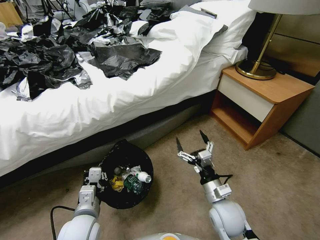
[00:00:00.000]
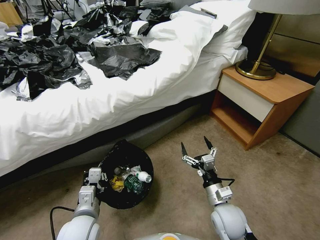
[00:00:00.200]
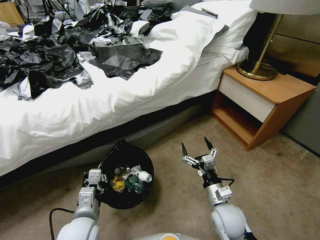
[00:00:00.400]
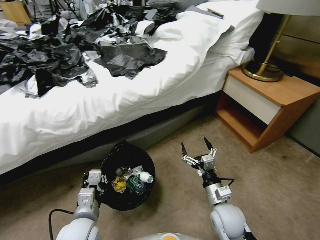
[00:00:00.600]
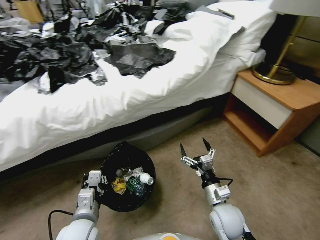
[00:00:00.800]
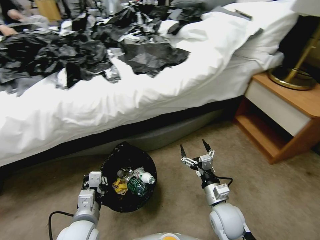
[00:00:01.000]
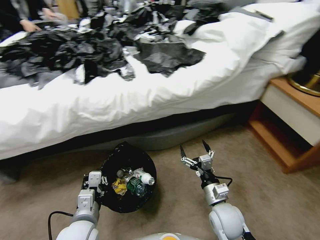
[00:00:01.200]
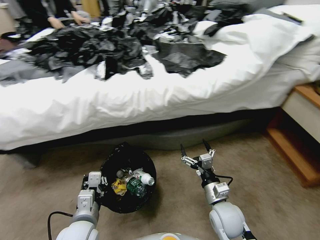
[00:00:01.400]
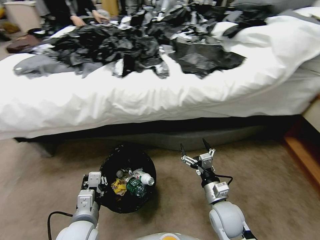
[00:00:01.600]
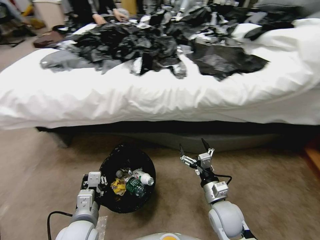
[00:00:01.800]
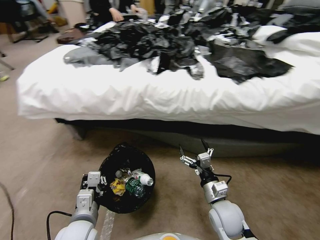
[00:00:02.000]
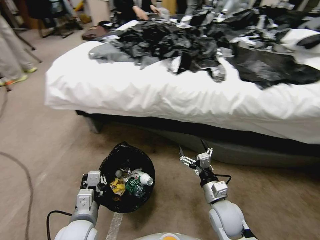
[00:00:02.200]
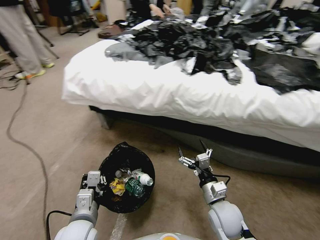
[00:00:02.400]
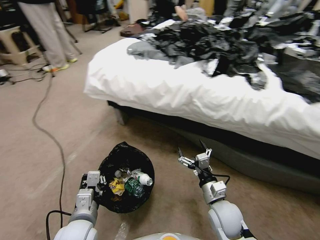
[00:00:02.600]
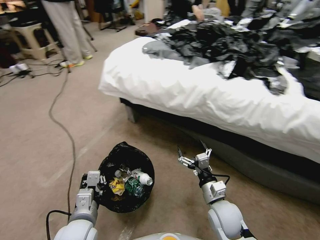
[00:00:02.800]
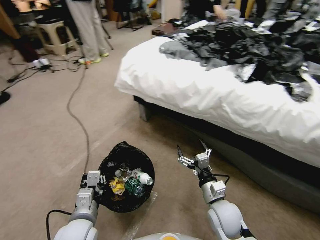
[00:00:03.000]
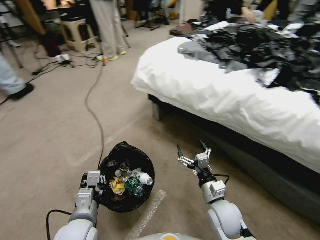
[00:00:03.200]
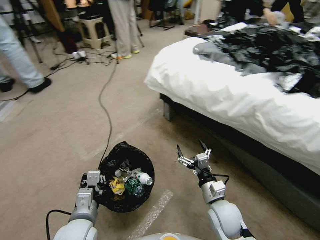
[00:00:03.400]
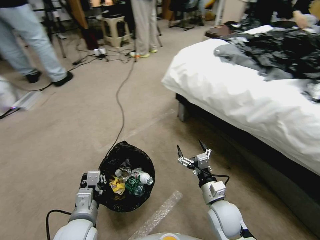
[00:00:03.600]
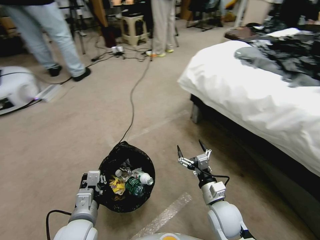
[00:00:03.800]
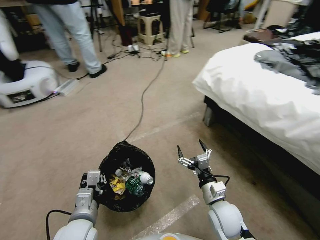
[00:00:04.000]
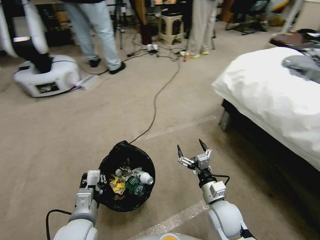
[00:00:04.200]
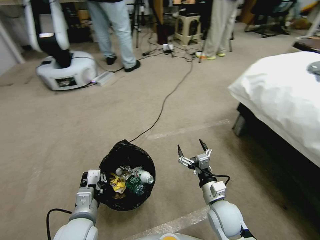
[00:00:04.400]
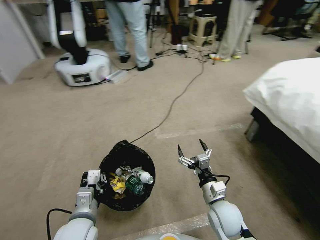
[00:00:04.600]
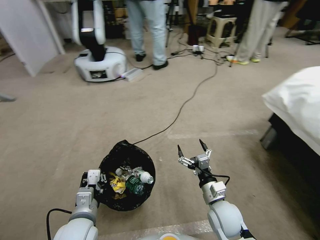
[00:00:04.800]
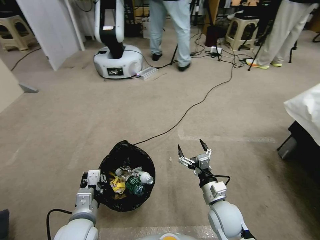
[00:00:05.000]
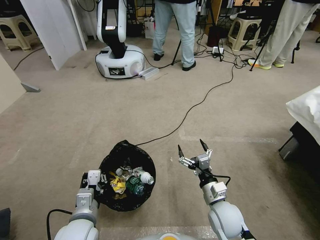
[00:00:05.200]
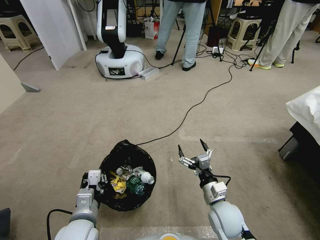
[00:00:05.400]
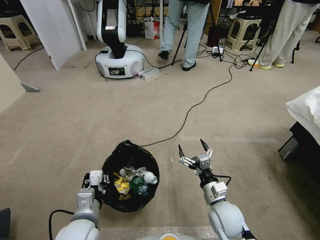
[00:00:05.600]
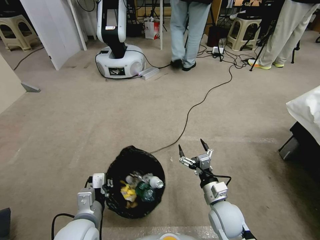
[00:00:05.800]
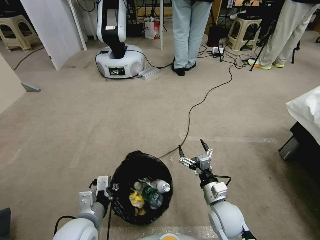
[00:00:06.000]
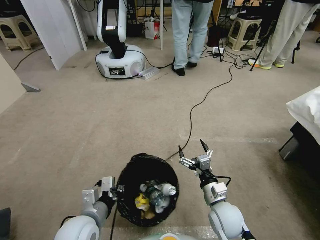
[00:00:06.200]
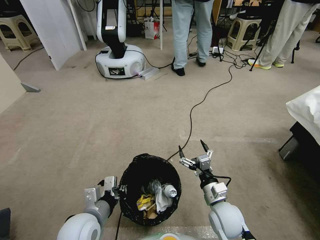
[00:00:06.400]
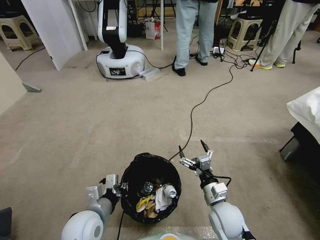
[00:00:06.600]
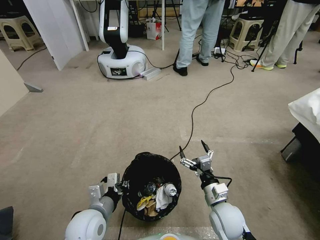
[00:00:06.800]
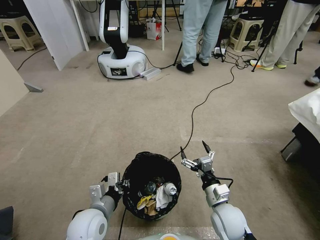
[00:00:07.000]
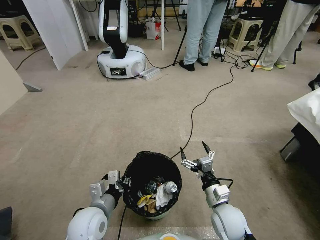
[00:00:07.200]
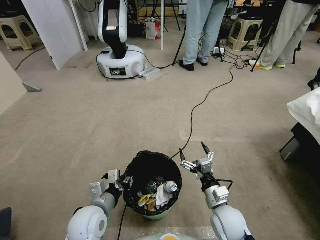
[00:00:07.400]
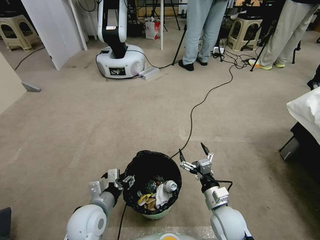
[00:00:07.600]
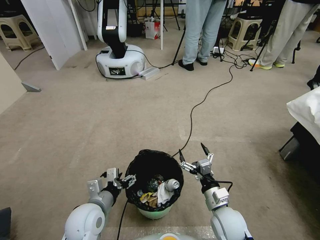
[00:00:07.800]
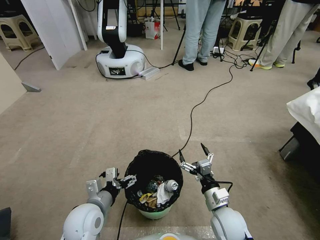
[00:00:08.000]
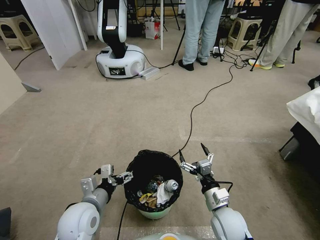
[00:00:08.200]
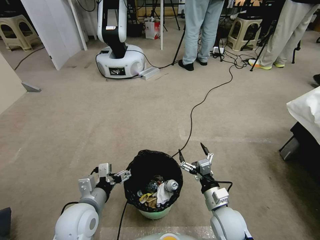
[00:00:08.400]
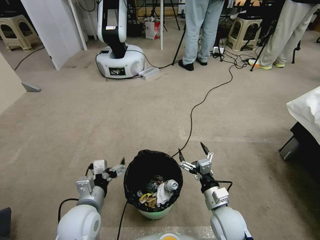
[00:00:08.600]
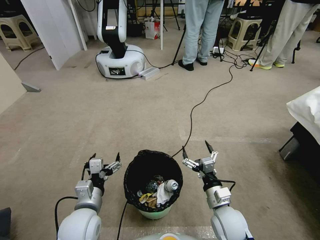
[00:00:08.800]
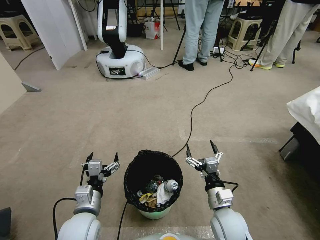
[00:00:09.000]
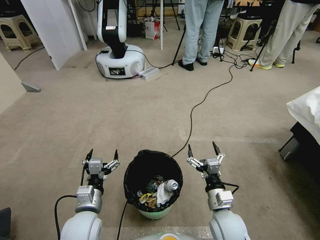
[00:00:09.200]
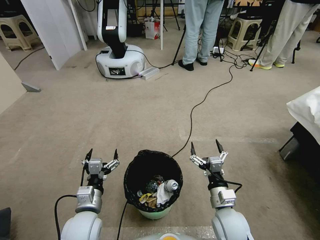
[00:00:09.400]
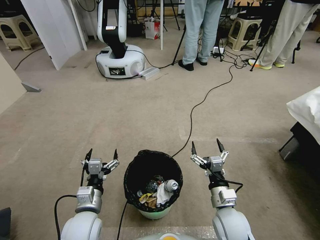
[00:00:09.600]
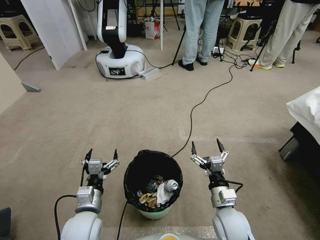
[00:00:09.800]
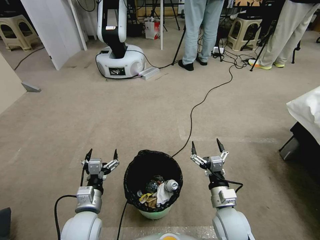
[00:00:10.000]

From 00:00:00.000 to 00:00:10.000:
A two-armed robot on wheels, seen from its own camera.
Task of the whole recording: Pick up the trash bin, then pick up the garbage from the floor and place it into the trash bin.
From 00:00:07.200 to 00:00:08.600: The left gripper opens up.
